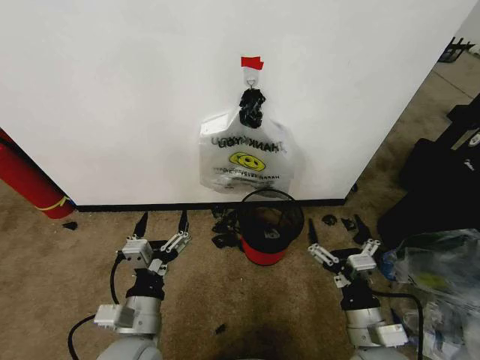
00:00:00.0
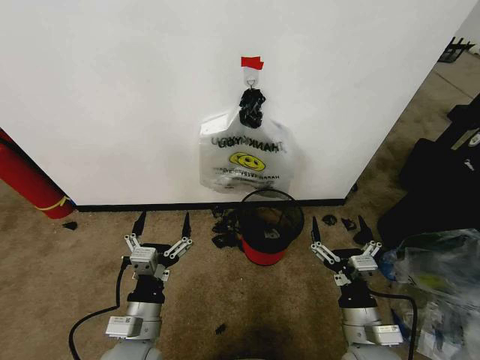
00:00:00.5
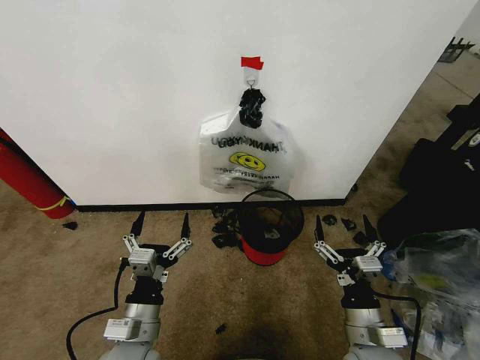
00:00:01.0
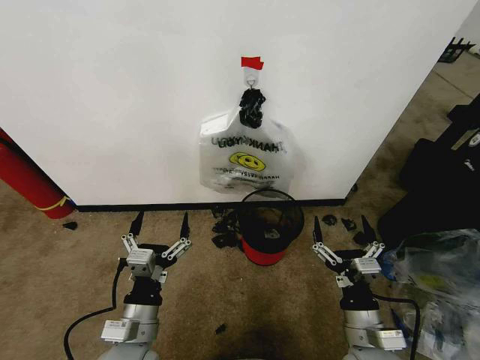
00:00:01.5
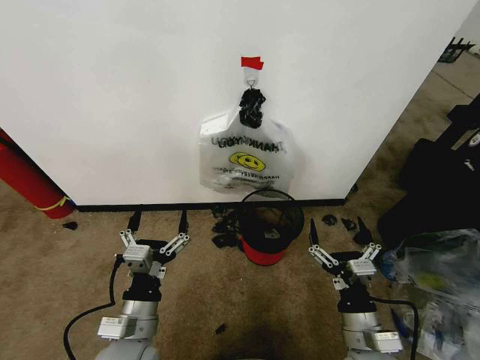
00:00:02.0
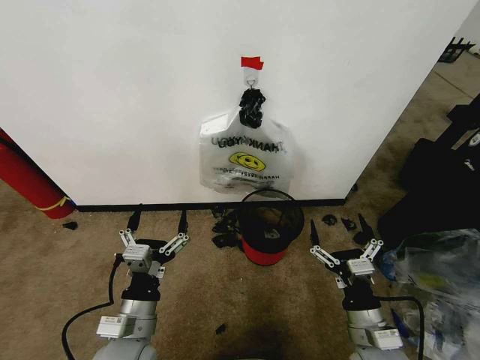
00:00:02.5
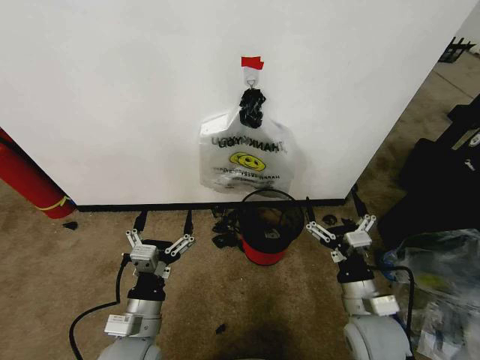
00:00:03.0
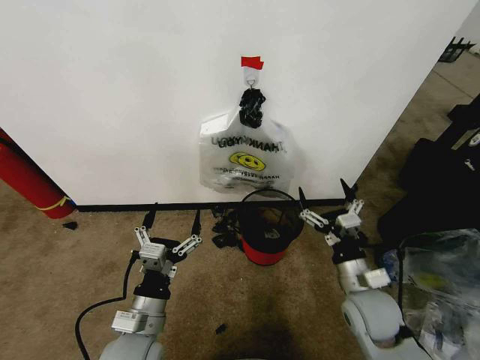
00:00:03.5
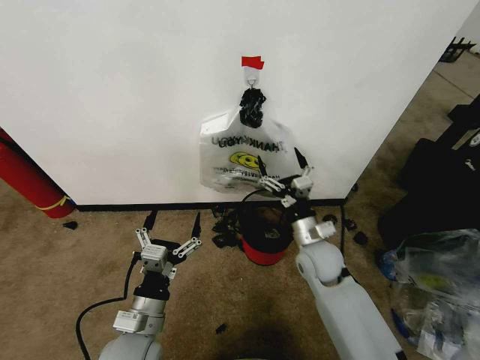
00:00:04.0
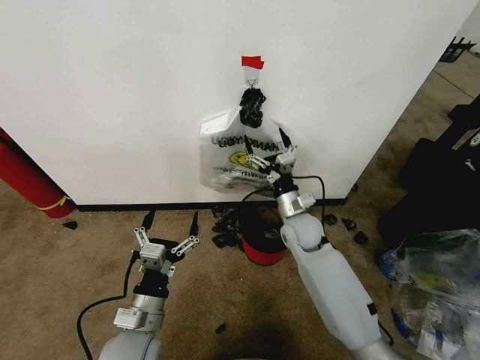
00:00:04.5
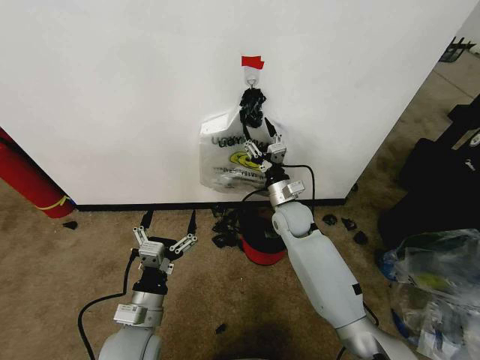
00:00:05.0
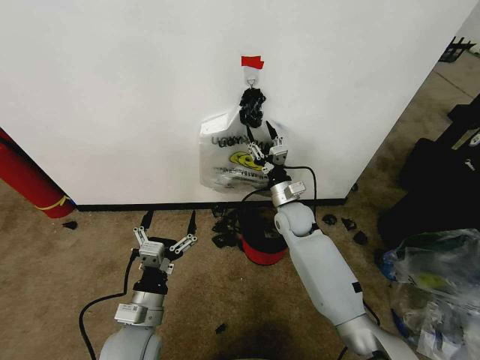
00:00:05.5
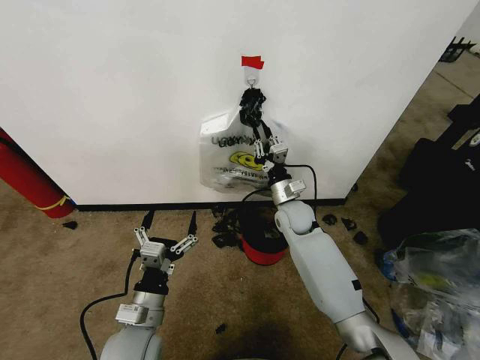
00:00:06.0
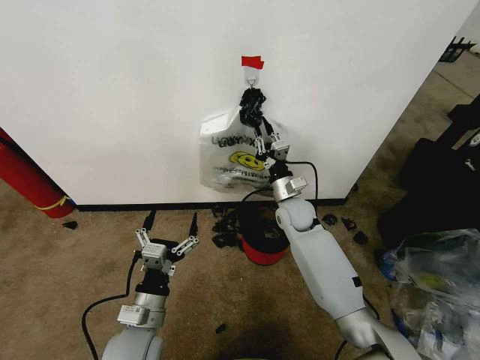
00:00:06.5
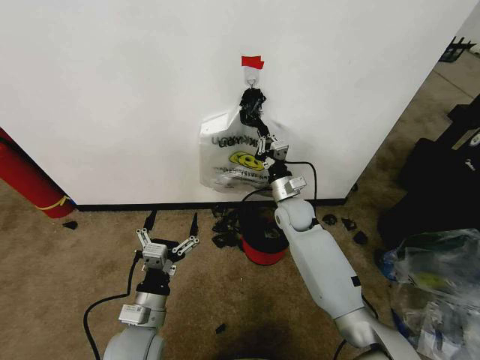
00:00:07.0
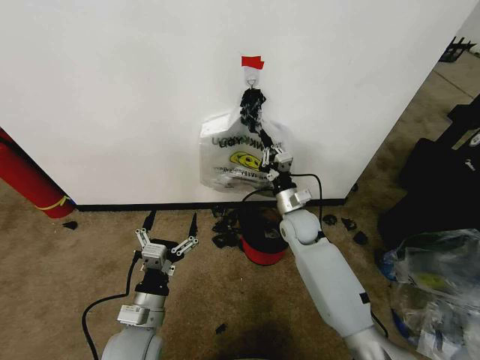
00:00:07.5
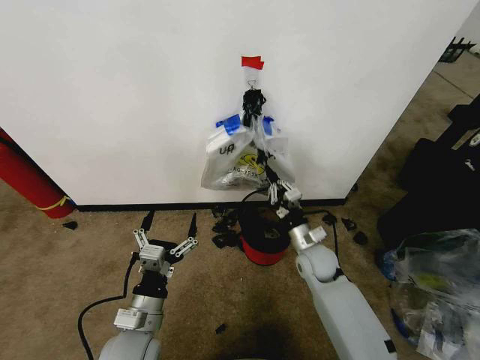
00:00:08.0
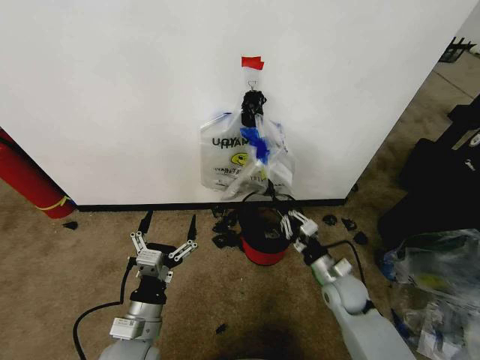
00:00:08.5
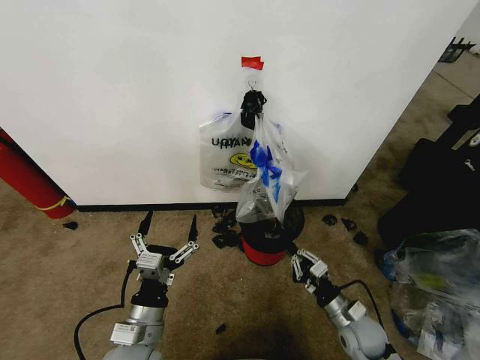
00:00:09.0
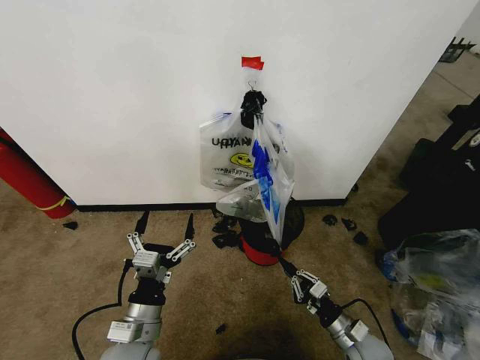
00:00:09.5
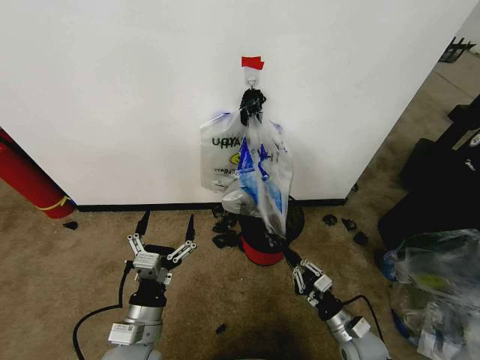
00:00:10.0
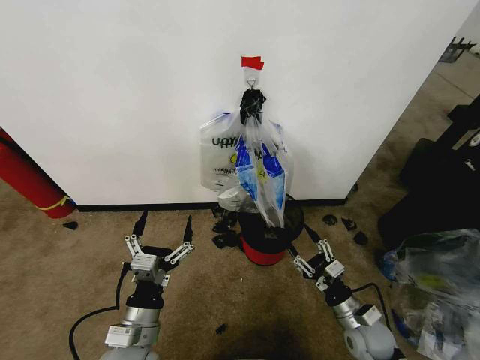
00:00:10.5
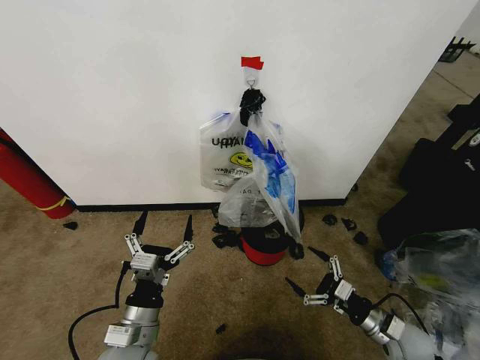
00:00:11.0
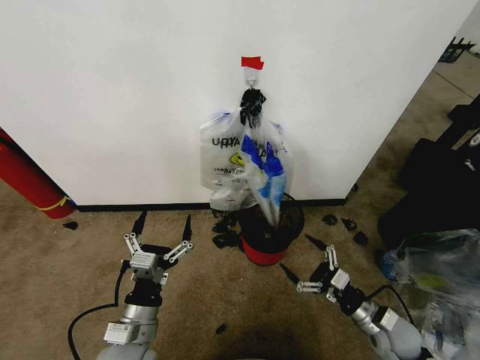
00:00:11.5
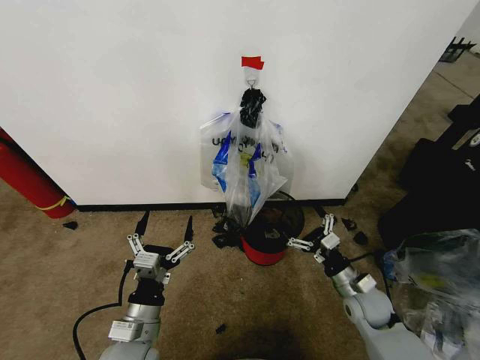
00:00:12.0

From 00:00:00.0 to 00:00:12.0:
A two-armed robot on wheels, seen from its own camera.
Task of the whole recording: Pick up the garbage bag from the wall and place it over the trash bin.
From 00:00:02.0 to 00:00:04.0: The right gripper heads forward, covering approximately 20 cm.
From 00:00:04.0 to 00:00:06.0: The right gripper moves forward, approximately 15 cm, and closes its fingers.
From 00:00:06.0 to 00:00:08.0: The right gripper shifts some 10 cm backward and downward.
From 00:00:08.0 to 00:00:10.0: The right gripper heads backward, downward and to the right, covering about 25 cm.
From 00:00:10.0 to 00:00:12.0: The right gripper moves forward and upward, some 10 cm, goes to the right and returns, some 10 cm each way, and opens its fingers.

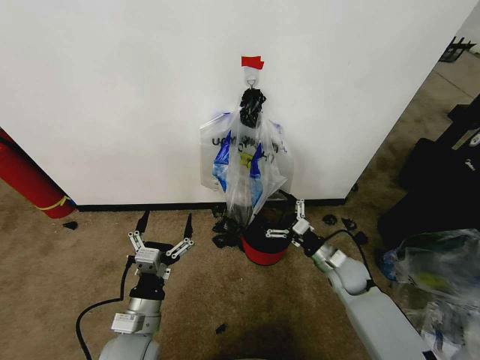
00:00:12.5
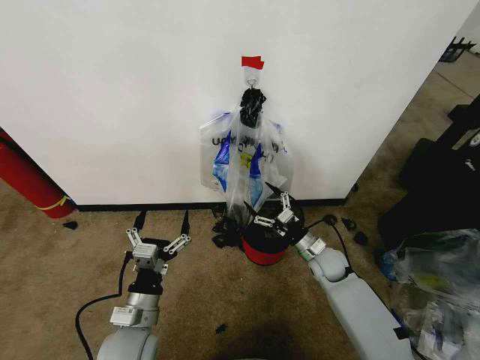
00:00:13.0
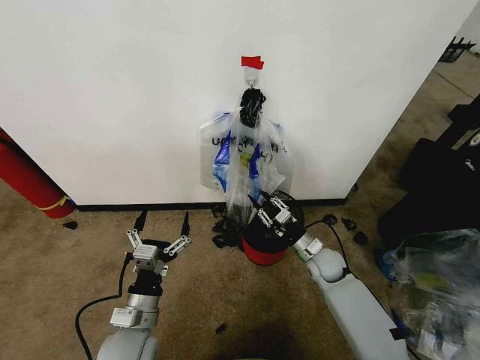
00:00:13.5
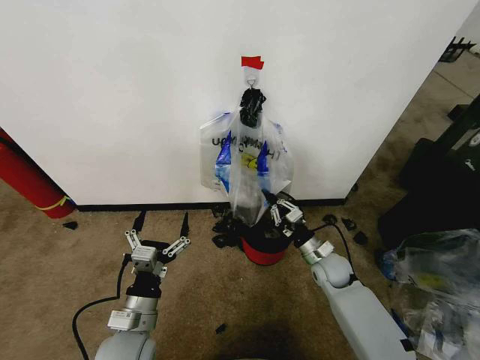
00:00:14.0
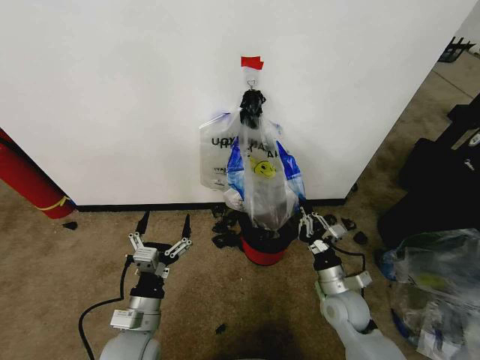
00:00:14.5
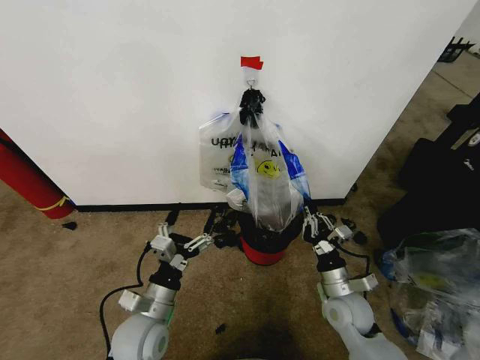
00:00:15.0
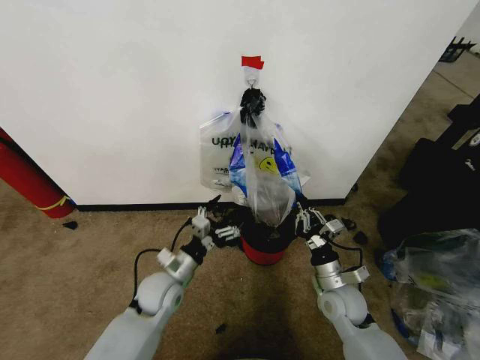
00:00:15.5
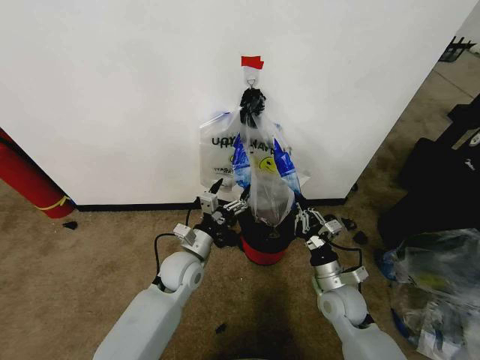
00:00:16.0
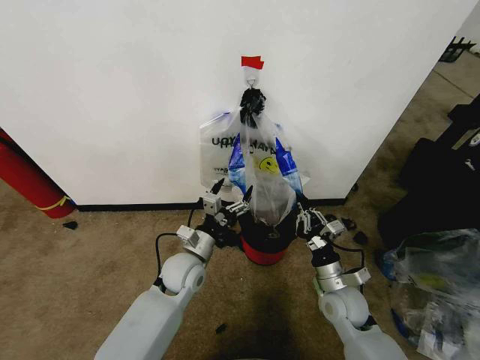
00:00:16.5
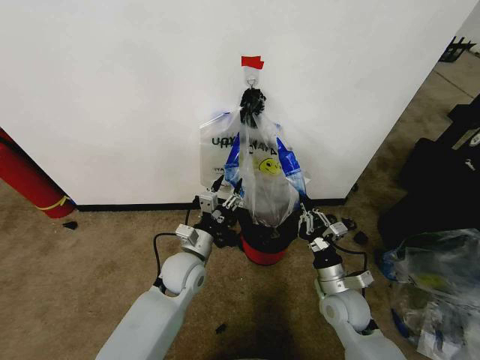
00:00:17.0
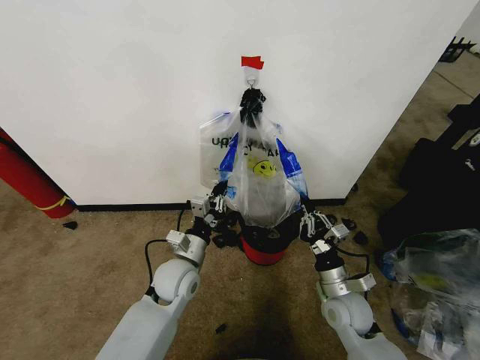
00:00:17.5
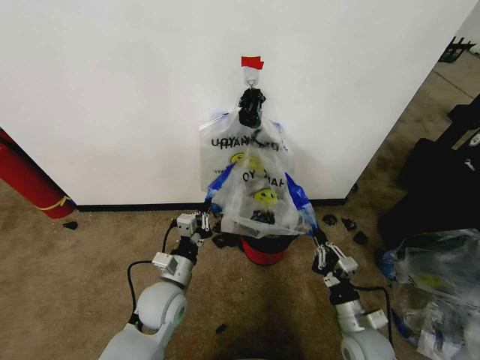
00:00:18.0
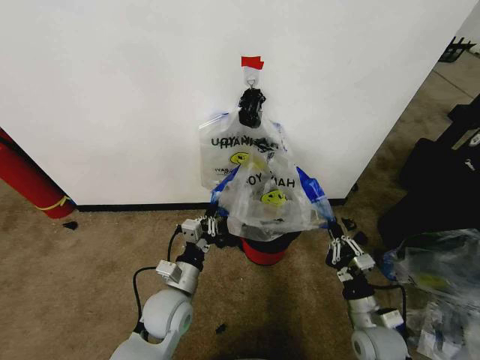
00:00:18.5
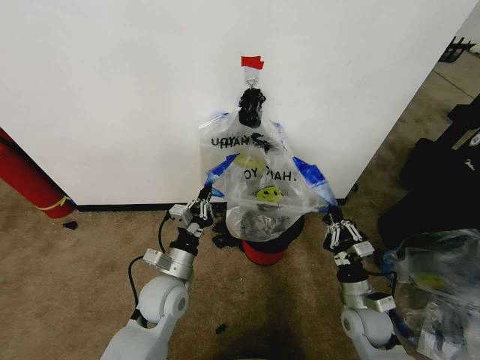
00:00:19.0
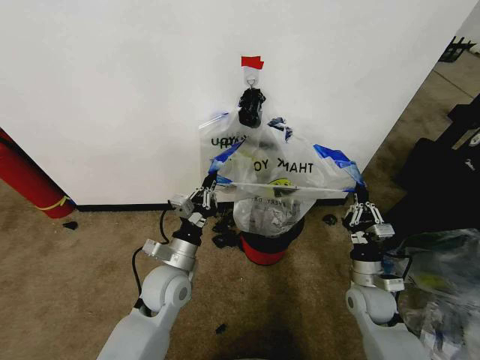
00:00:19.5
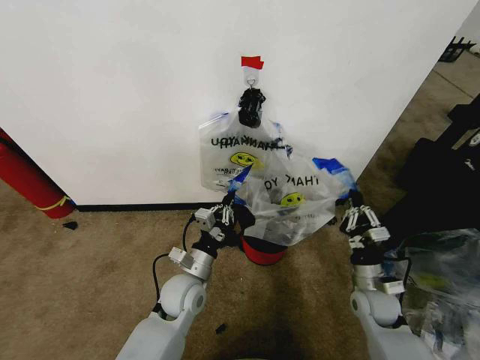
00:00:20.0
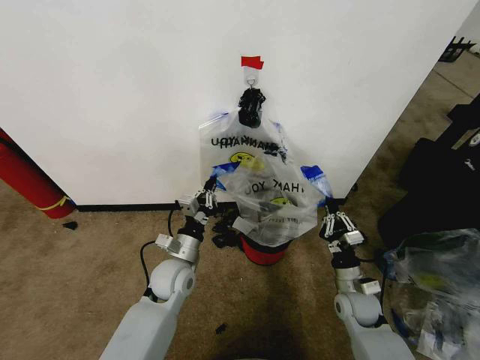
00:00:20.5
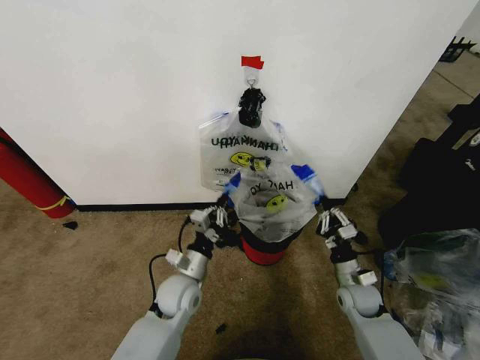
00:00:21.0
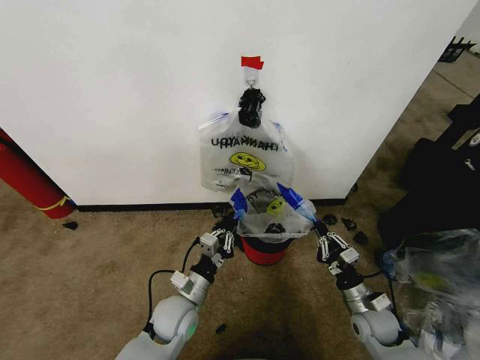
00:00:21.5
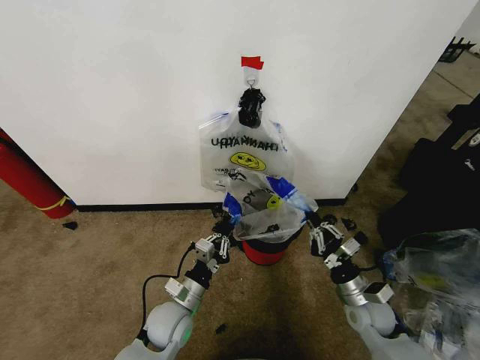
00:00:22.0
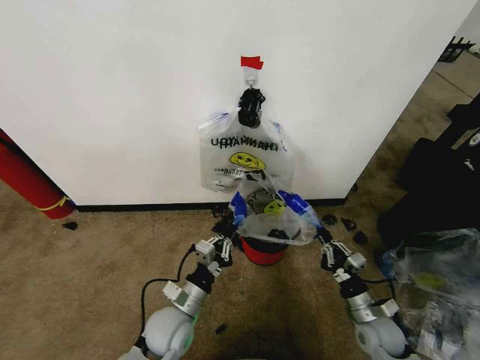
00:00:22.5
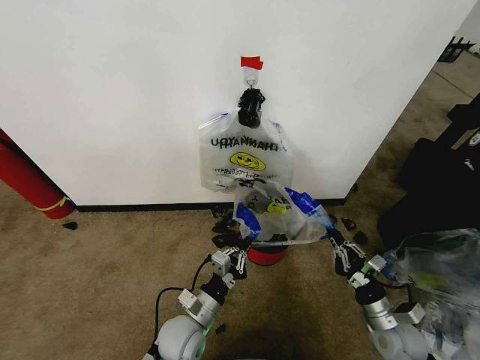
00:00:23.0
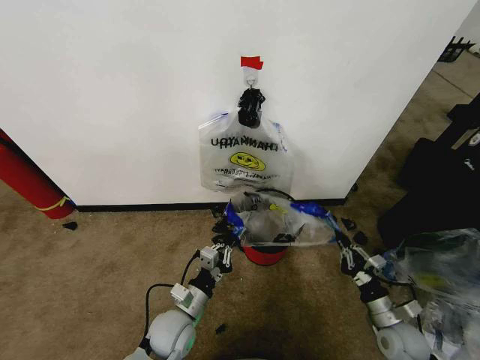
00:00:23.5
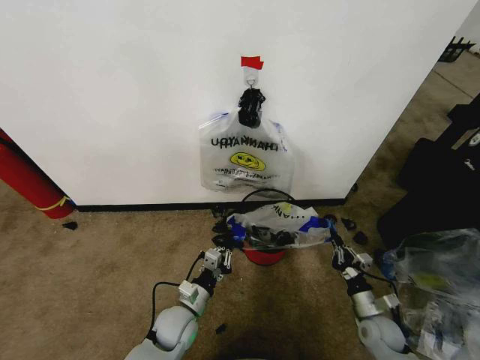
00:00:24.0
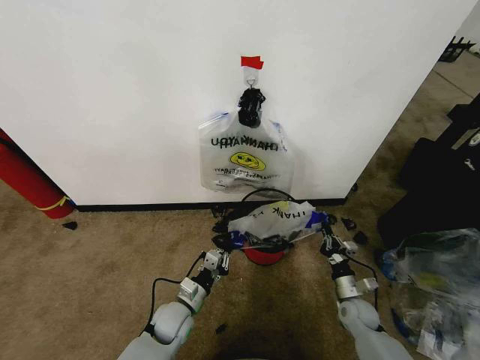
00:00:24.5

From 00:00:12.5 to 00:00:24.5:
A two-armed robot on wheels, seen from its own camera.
Task of the whole recording: Pick up the garbage bag from the wall and place it over the trash bin.
From 00:00:12.5 to 00:00:14.5: The right gripper moves backward, some 10 cm, and closes its fingers.
From 00:00:14.5 to 00:00:16.5: The left gripper heads forward and to the right, covering roughly 20 cm.
From 00:00:16.5 to 00:00:18.5: The left gripper is displaced backward by roughly 10 cm, and closes, while the right gripper travels backward and to the right by roughly 10 cm.
From 00:00:18.5 to 00:00:20.5: The two grippers go approximately 10 cm forward.
From 00:00:20.5 to 00:00:22.5: The right gripper is displaced backward by some 5 cm; the left gripper moves backward, some 10 cm.
From 00:00:22.5 to 00:00:24.5: The left gripper travels downward by about 10 cm. The right gripper is displaced downward and forward by some 10 cm.

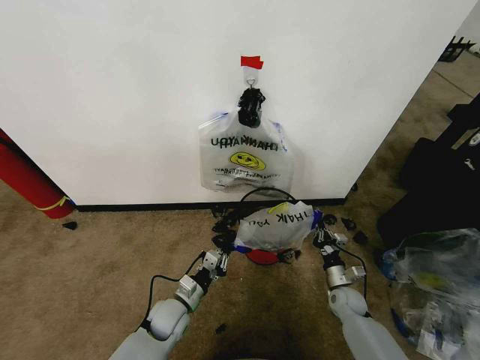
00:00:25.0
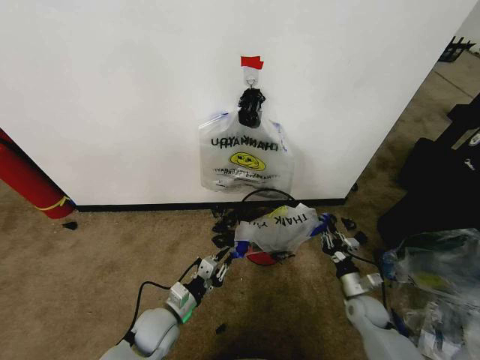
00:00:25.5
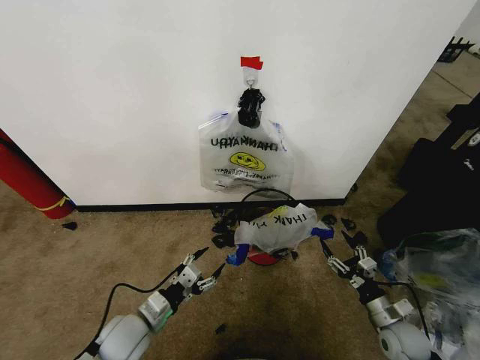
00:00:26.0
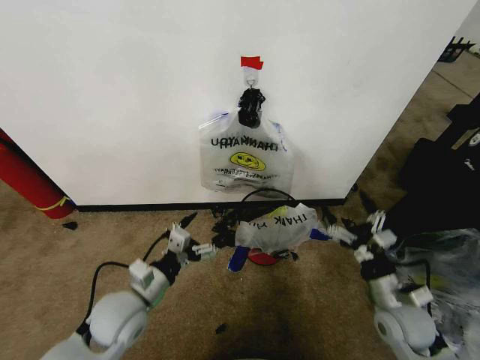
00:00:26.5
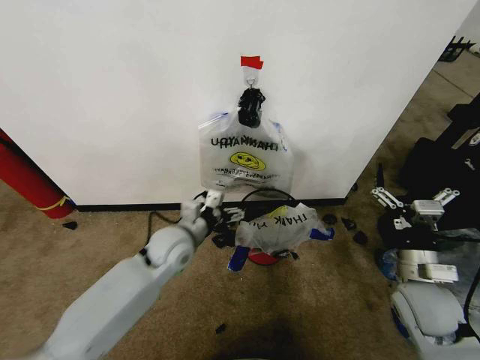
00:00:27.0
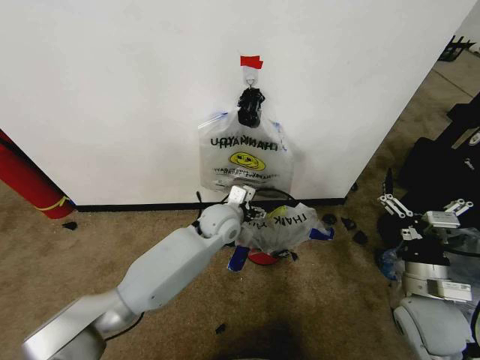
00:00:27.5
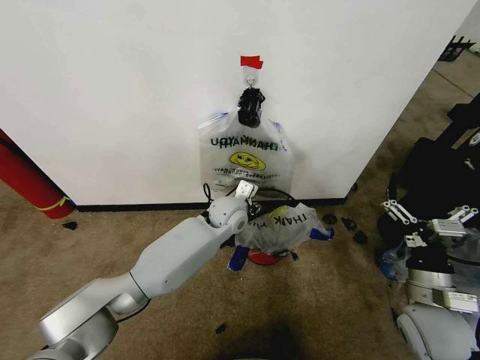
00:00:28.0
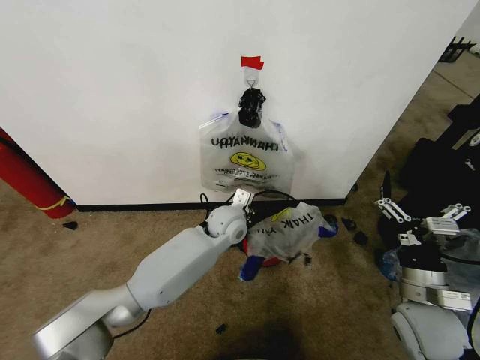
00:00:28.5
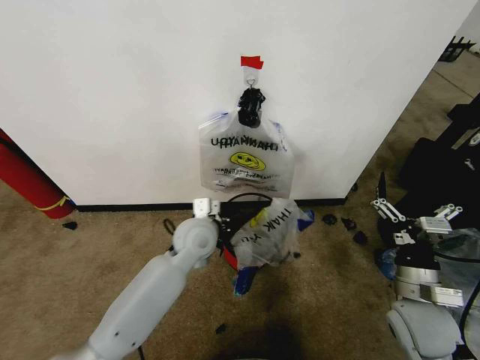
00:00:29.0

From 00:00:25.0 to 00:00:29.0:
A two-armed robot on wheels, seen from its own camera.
Task of the whole recording: Pick up the garbage bag from the wall and place it over the trash bin.
From 00:00:25.0 to 00:00:27.0: The right gripper heads upward, covering about 25 cm, and opens. Meanwhile the left gripper goes some 20 cm upward and forward, and opens its fingers.
From 00:00:27.0 to 00:00:29.0: The left gripper closes its fingers.
